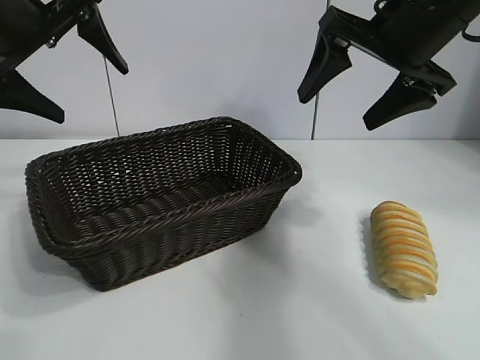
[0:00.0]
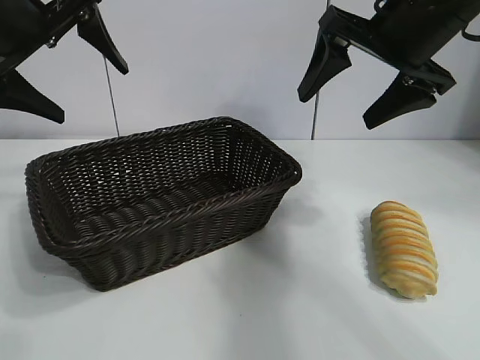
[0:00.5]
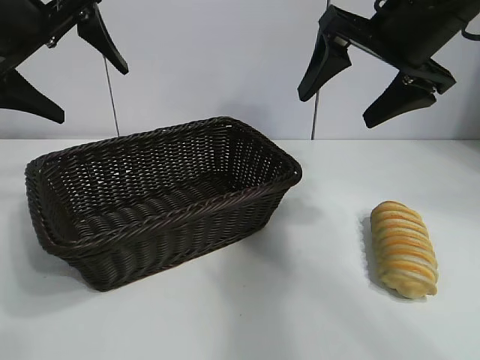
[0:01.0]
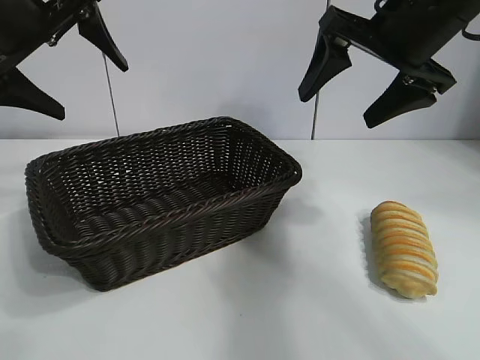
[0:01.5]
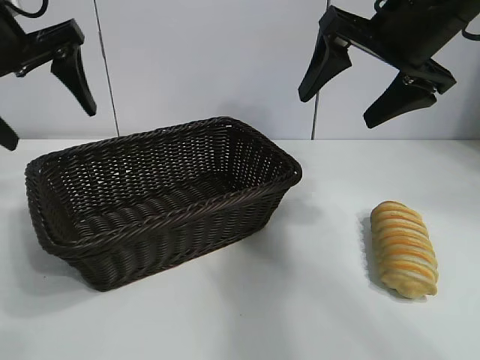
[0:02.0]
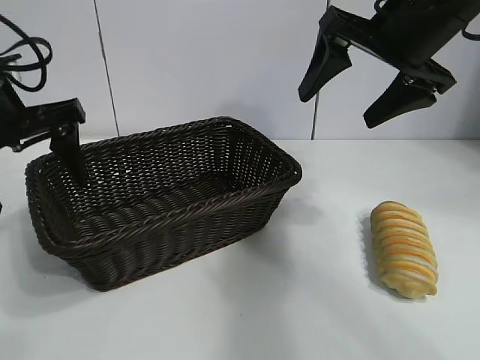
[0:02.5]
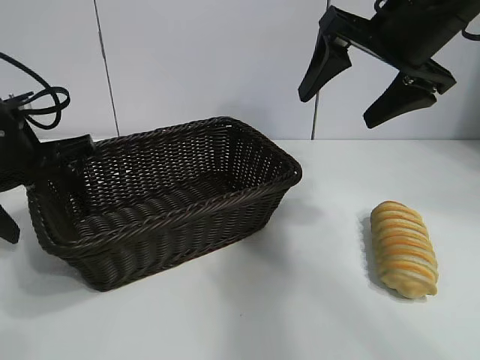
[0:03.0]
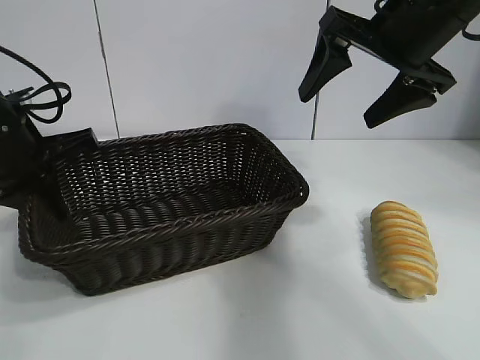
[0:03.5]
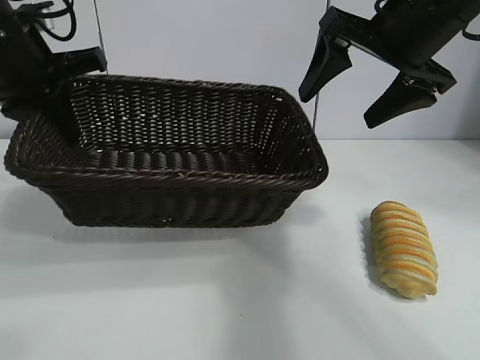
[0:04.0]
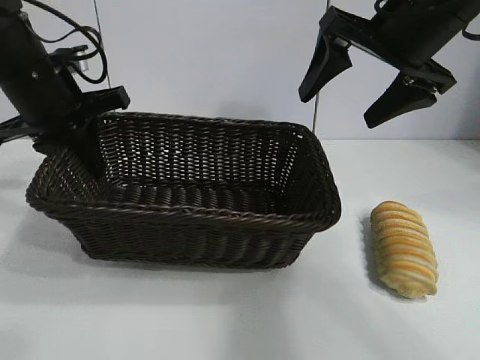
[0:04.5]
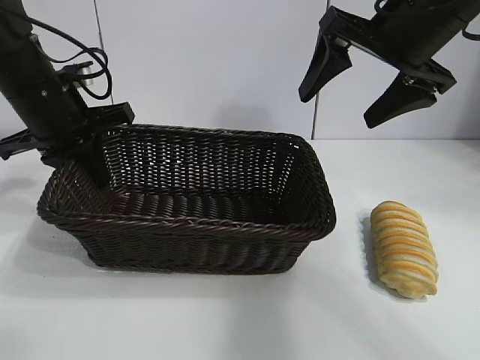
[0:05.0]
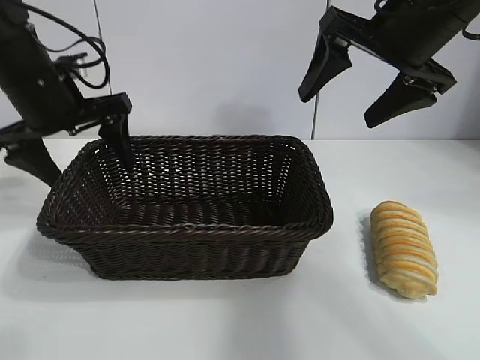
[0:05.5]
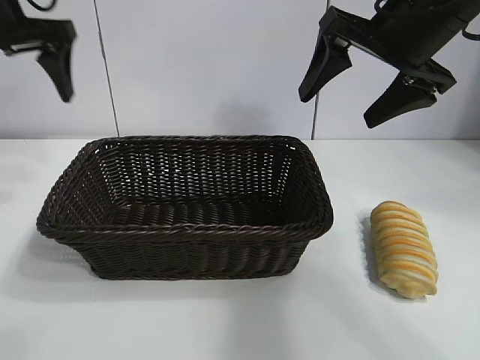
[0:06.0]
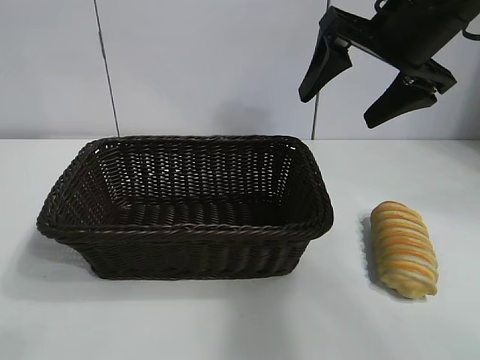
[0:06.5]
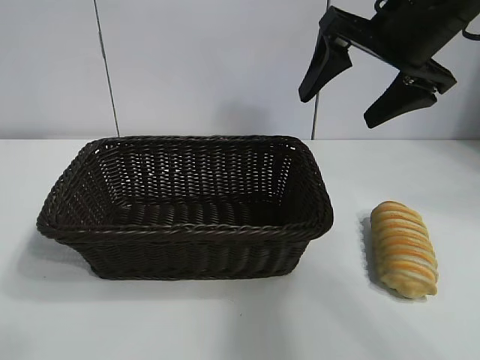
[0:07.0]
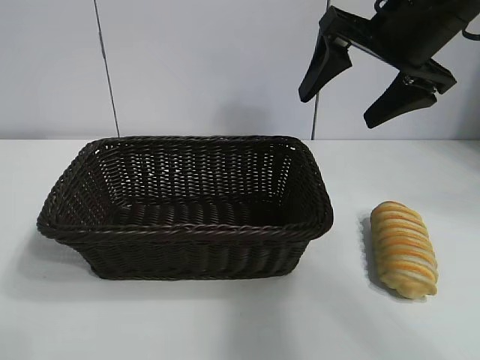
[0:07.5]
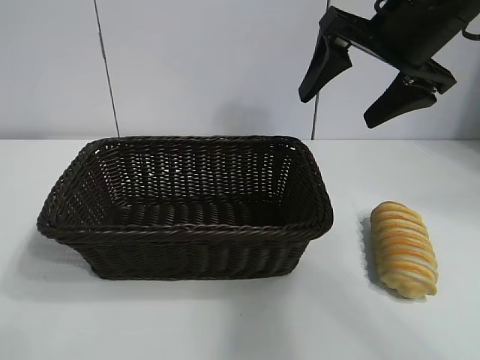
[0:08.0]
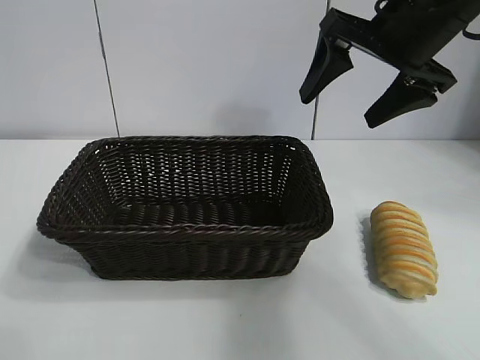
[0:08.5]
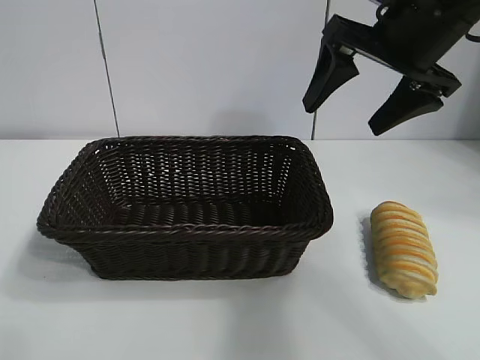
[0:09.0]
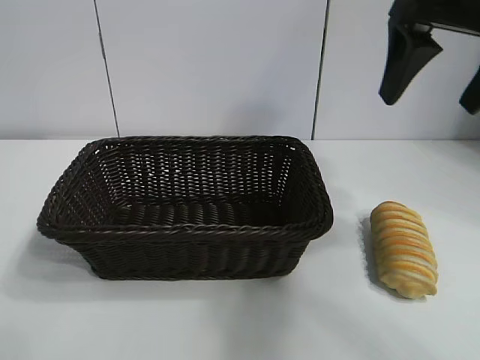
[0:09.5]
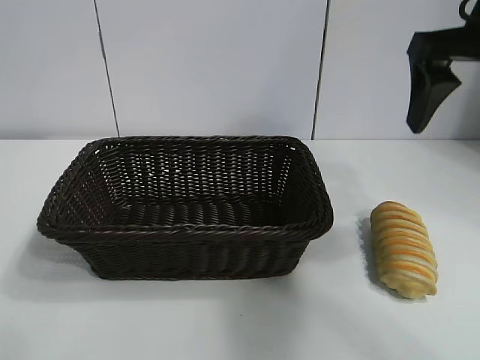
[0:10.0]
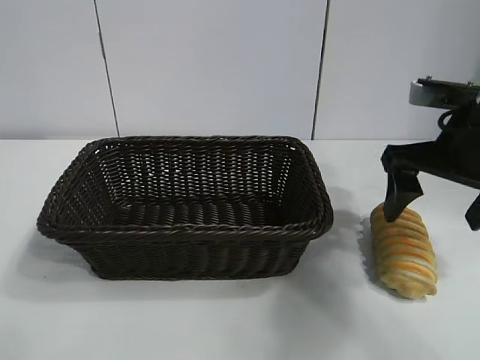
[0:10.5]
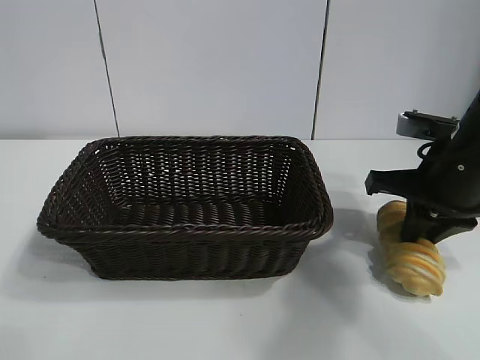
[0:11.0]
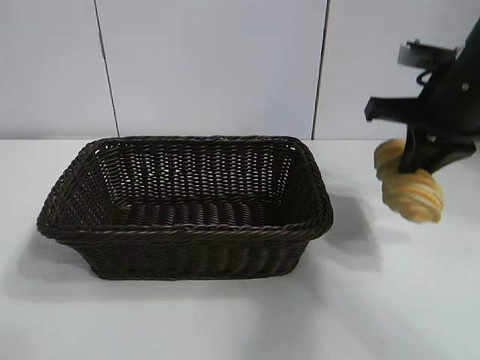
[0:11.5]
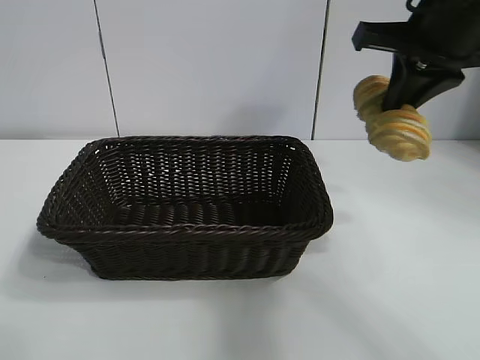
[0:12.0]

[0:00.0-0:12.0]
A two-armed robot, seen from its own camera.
Task of the whole recording: pick up the long bread and put it into the basket.
Step, 0:02.0 to 0:03.0: Grasp the basket with the left gripper.
Step, 0:04.0 to 0:05.0: Place the basket in the center of the table with the left gripper.
Step, 0:05.5 to 0:11.0: Grasp the long bread with right gripper.
